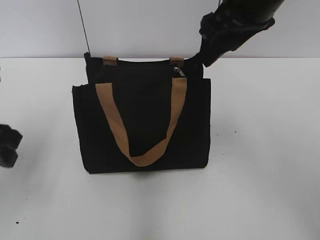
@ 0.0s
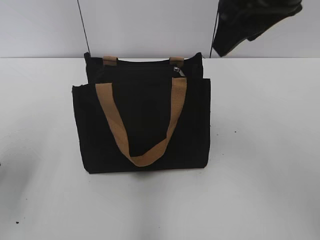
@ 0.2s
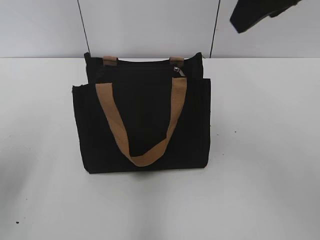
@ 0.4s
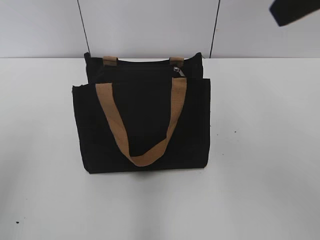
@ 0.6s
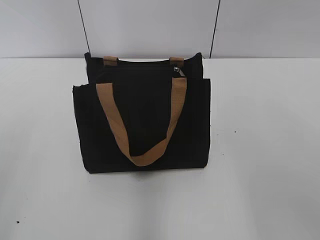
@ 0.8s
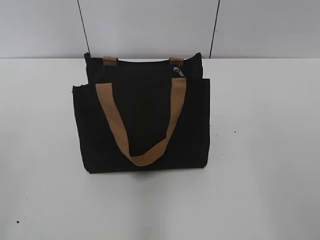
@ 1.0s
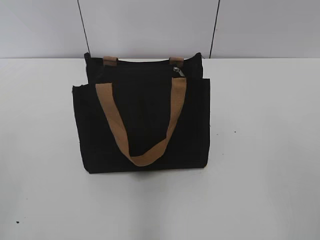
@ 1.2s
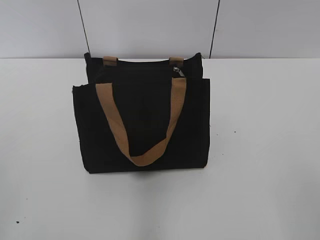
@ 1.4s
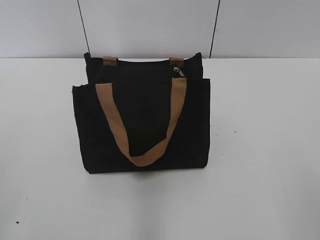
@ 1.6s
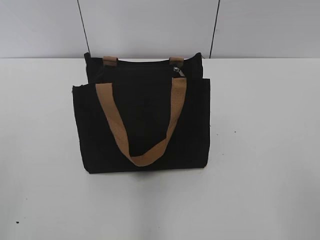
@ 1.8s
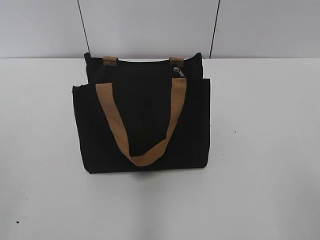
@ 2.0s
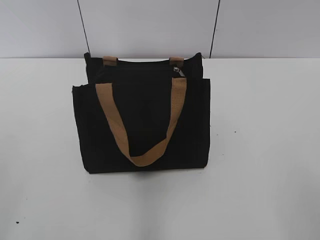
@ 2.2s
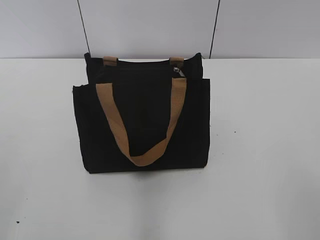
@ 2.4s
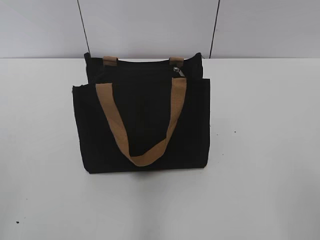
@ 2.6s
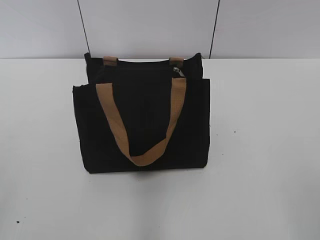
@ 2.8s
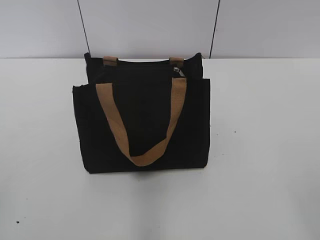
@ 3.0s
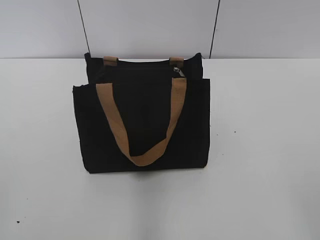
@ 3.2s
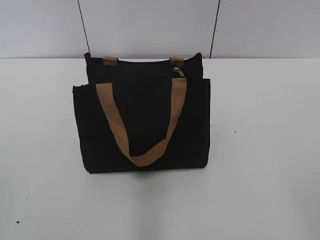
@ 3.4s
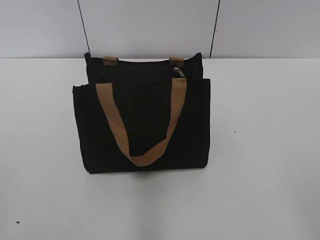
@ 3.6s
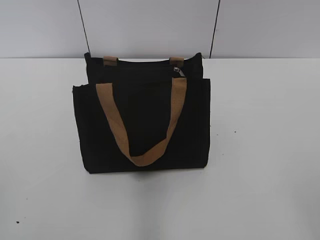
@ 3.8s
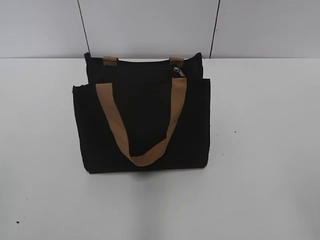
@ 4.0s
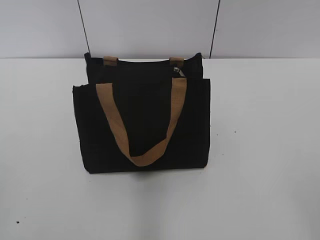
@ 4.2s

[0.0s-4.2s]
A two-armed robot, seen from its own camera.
0.0s to 1.4s: The right gripper travels backward and to the right by roughly 35 cm. Meanwhile the left gripper travels backward by about 20 cm.

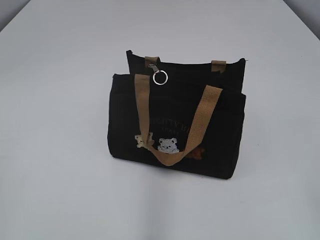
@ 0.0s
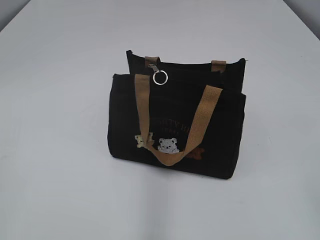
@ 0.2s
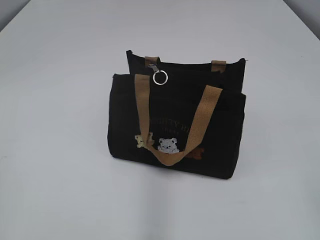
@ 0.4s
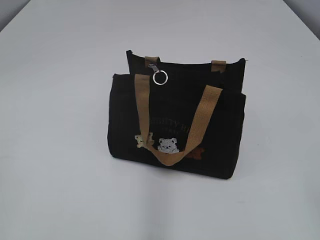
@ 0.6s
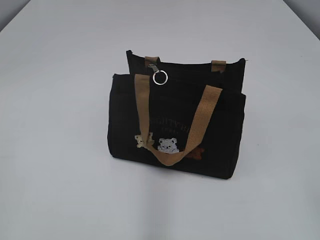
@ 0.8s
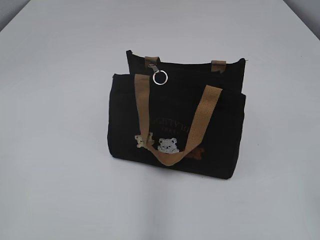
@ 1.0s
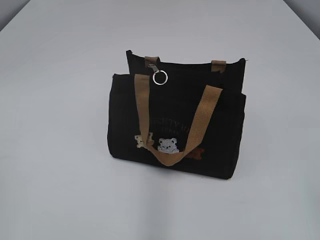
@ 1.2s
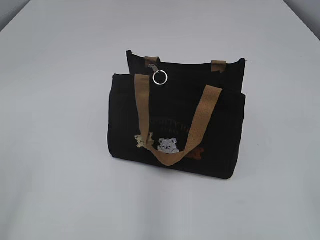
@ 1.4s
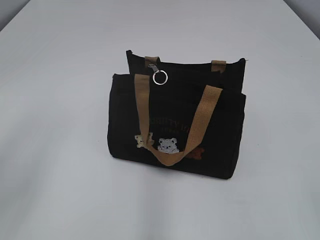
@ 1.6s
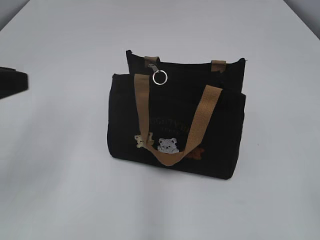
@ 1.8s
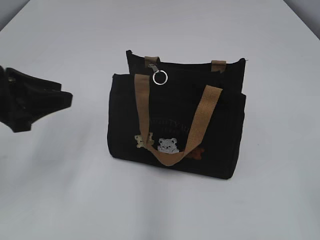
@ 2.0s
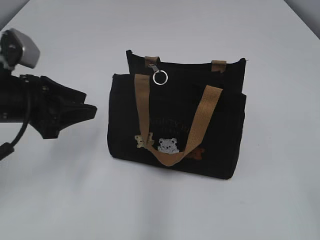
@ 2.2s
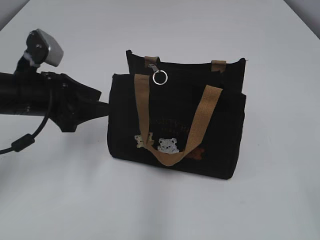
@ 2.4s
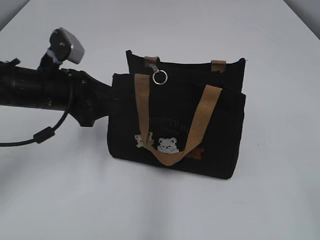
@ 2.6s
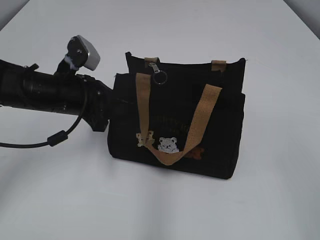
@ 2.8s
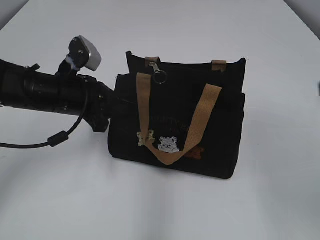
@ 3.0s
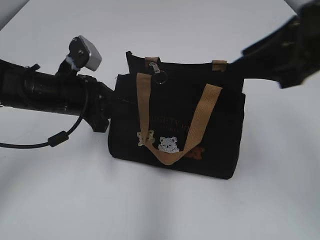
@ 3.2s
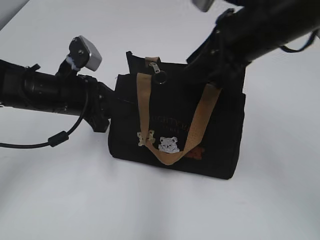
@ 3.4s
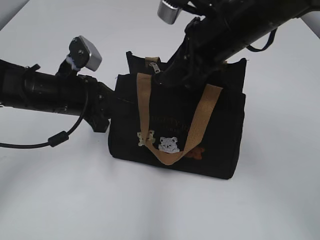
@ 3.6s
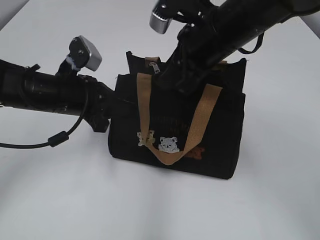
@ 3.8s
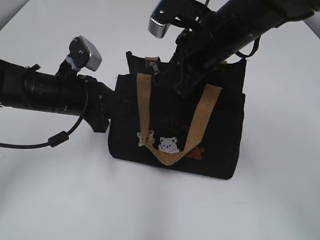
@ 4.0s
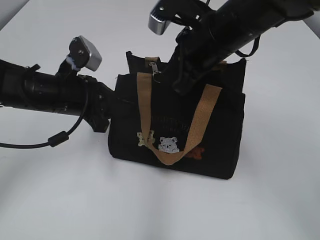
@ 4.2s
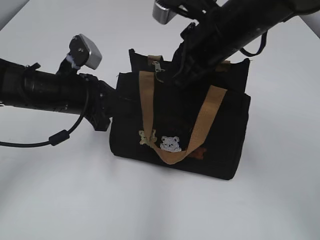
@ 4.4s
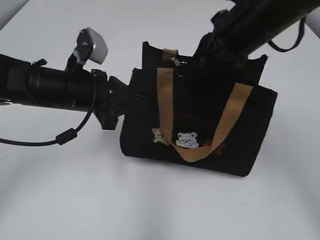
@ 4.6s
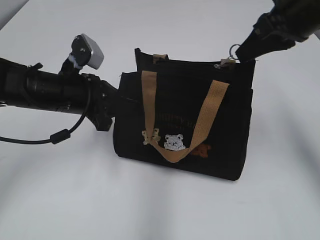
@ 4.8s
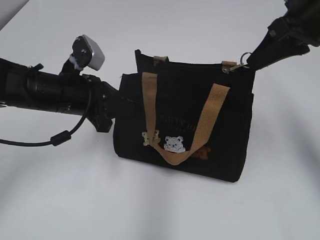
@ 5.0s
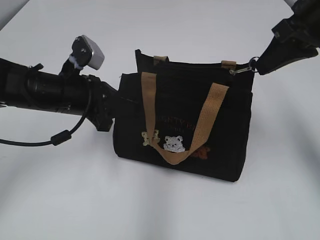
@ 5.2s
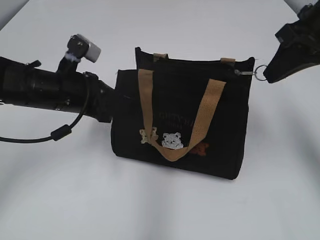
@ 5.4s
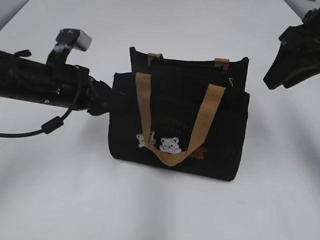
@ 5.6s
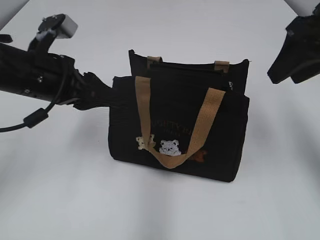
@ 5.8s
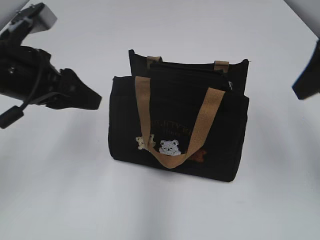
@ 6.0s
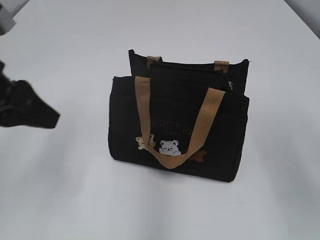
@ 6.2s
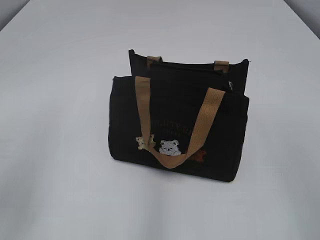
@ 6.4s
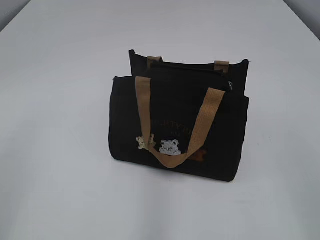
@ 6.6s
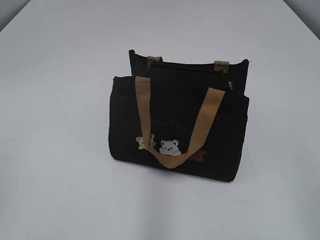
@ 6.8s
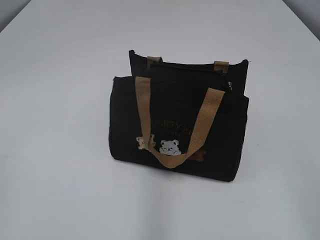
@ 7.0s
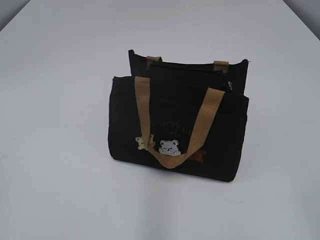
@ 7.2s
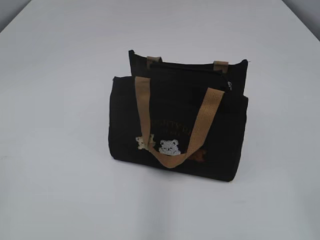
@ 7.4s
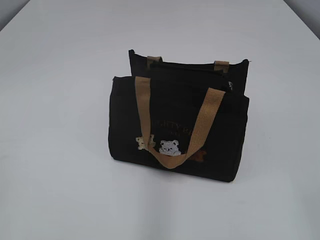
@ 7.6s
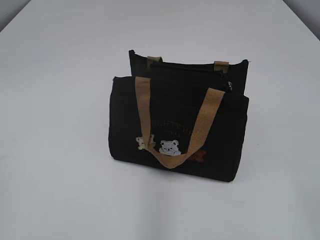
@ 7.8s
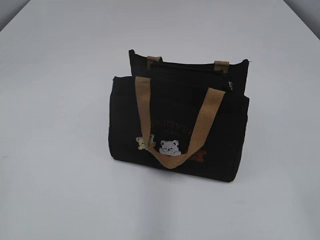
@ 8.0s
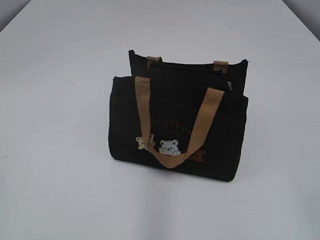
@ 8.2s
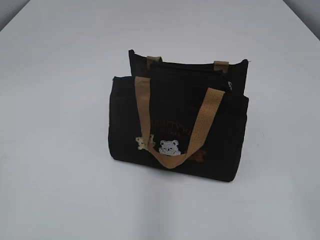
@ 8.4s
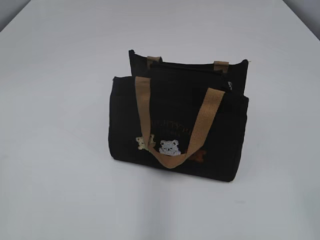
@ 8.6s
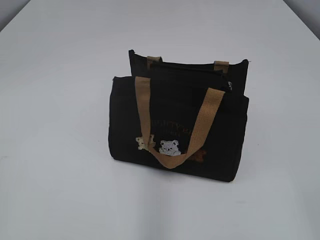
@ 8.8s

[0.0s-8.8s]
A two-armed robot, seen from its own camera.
Step, 0.0s to 5.4s: Pull open the zipper with your right hand.
Step, 5.6s to 5.8s: Hold the bag with your left hand.
1.4s to 3.0s: The left gripper moves forward, to the right and downward, some 35 cm, and closes; the right gripper moves forward, about 10 cm.
3.0s to 4.4s: The right gripper is displaced forward and to the left by roughly 30 cm, and closes.
4.4s to 5.8s: The left gripper opens up; the right gripper travels to the right by some 15 cm, and opens its fingers.
5.8s to 7.4s: The left gripper moves backward and to the left, approximately 35 cm, and closes its fingers; the right gripper goes about 30 cm backward.

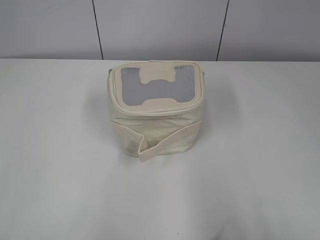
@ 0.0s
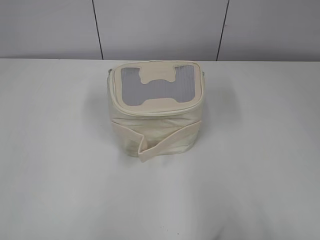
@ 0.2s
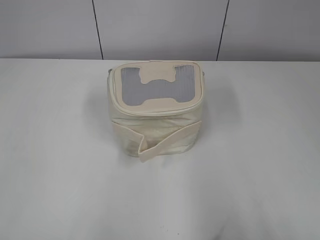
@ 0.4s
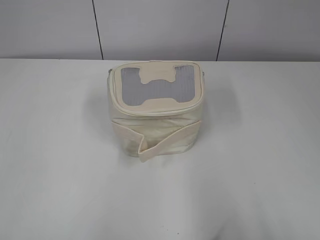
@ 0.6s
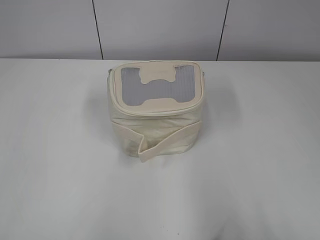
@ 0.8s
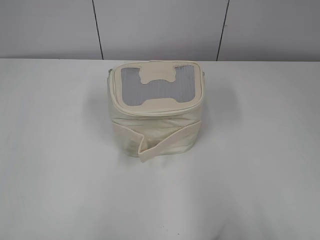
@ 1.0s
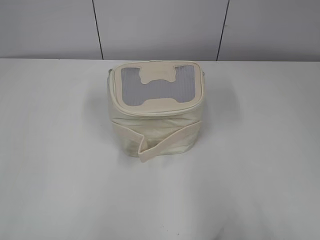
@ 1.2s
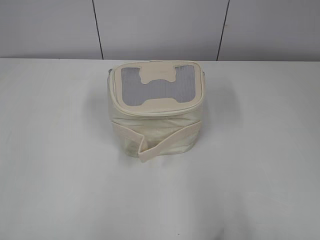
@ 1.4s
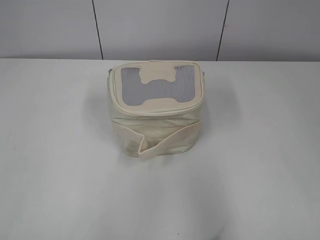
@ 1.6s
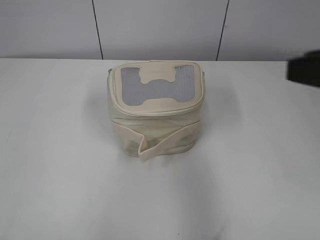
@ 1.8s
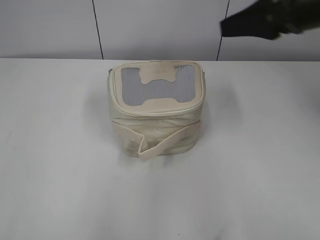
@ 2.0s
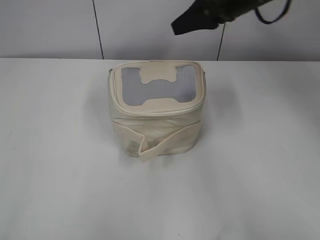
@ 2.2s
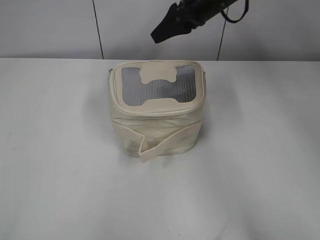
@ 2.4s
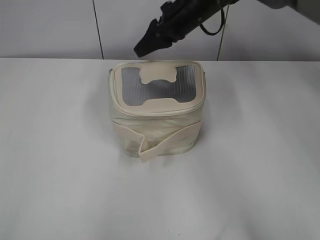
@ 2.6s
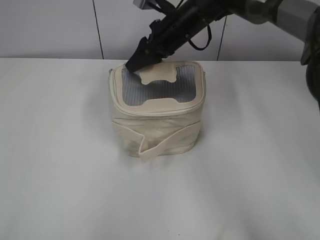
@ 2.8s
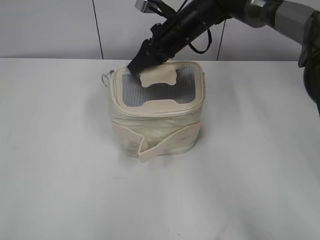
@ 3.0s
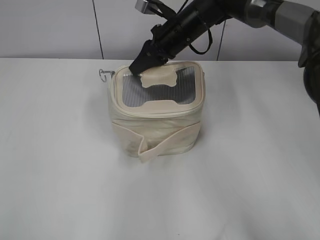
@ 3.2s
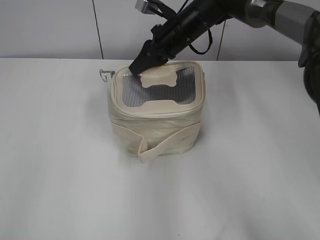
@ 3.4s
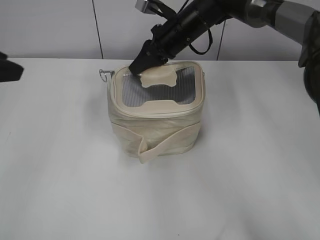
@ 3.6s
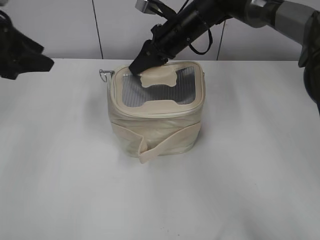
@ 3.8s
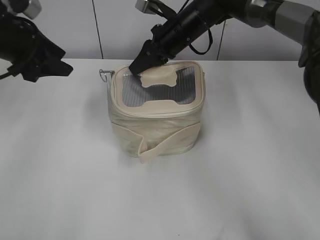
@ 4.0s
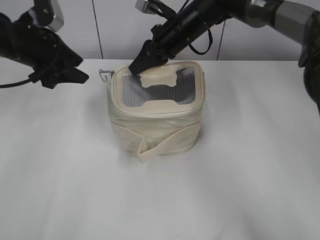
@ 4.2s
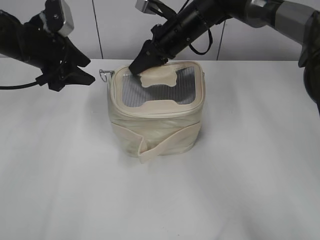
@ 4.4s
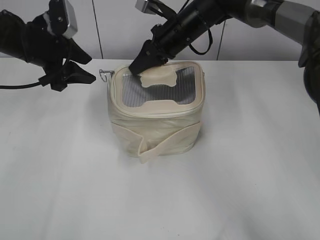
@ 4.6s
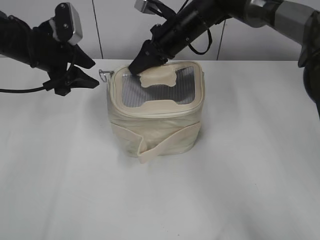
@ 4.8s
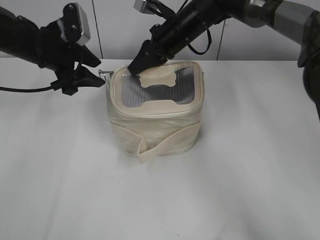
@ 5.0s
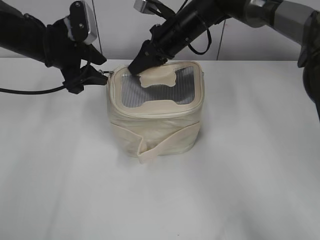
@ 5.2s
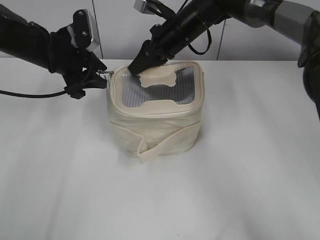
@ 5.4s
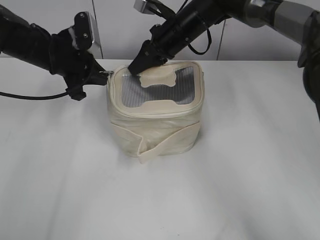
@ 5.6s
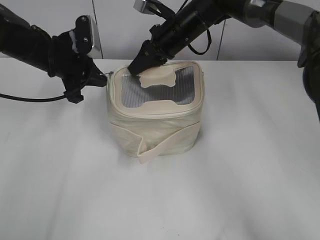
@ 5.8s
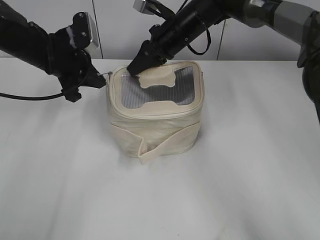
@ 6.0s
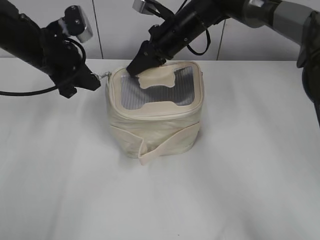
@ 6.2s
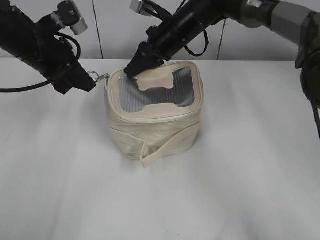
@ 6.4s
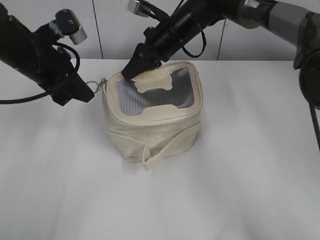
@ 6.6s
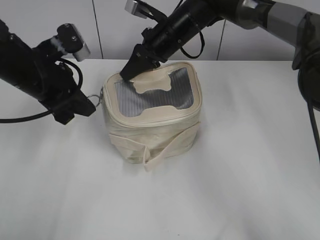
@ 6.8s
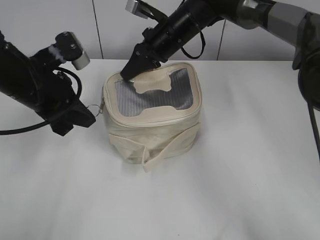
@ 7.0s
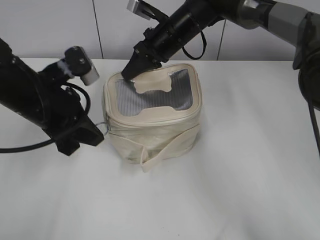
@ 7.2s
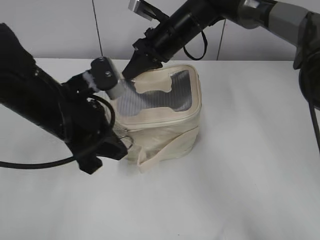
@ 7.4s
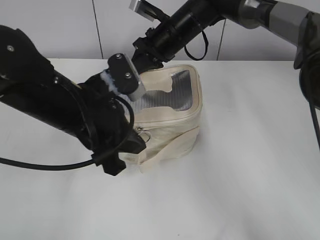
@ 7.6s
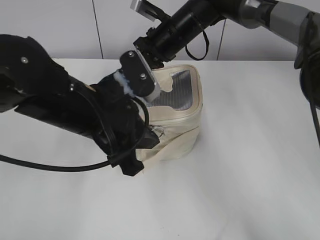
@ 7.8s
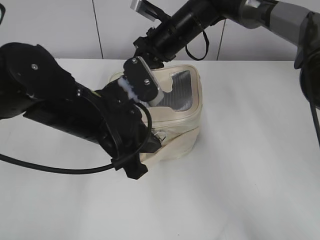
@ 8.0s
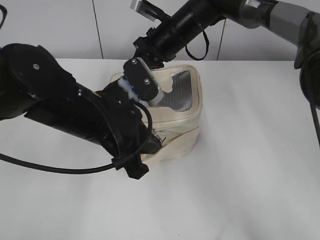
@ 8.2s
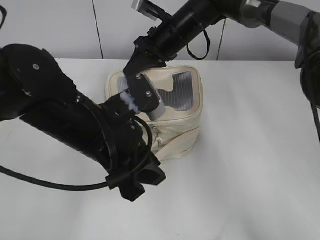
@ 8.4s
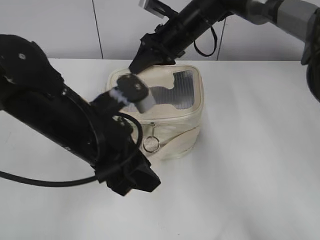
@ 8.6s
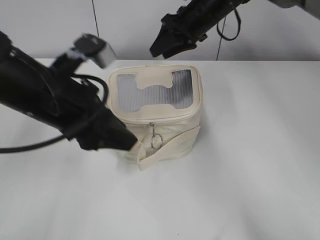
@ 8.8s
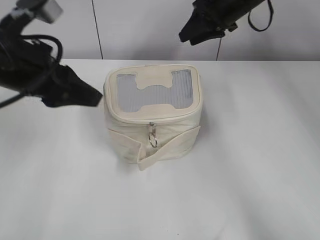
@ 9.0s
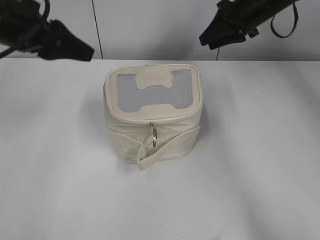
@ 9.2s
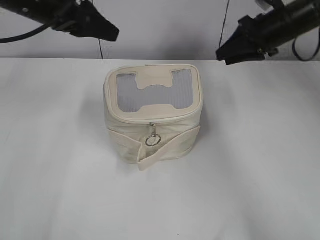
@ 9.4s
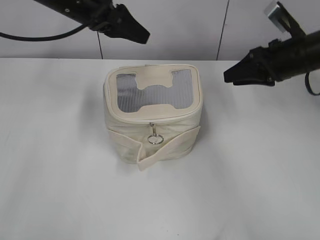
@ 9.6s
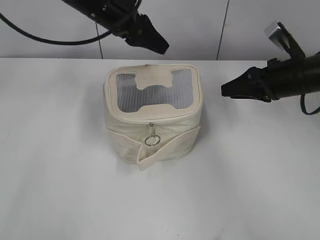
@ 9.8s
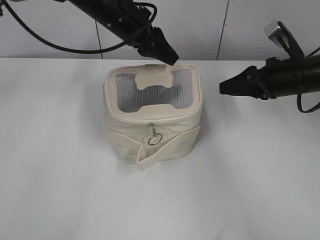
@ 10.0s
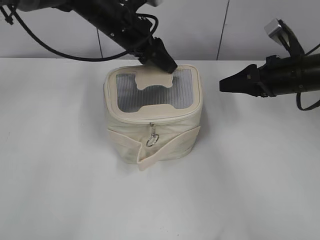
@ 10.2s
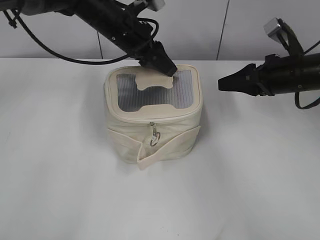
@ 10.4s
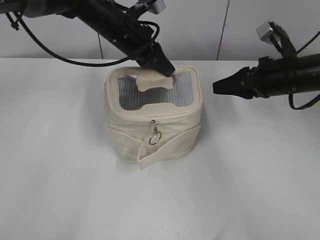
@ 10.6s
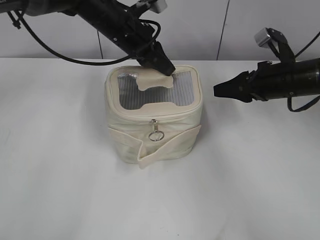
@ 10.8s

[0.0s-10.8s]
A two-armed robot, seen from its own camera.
Step, 0.0s to 8.4s: Zip up the bag with your left hand.
1.6s to 3.0s: The right gripper shifts about 50 cm forward and to the left.
3.0s to 4.6s: The left gripper shifts approximately 40 cm forward, and opens up. The right gripper closes up.
4.6s to 6.2s: The left gripper closes its fingers.
6.2s to 7.8s: The left gripper shifts approximately 20 cm backward and to the right.
7.8s to 9.2s: The right gripper heads to the right, covering about 15 cm, and opens up, while the left gripper moves to the left, upward and forward, some 15 cm, and opens its fingers.
9.2s to 10.8s: The left gripper shifts some 20 cm forward, to the right and downward, and closes its fingers; the right gripper heads backward and downward, covering approximately 15 cm.
